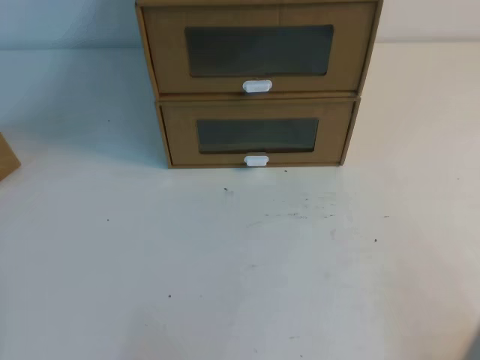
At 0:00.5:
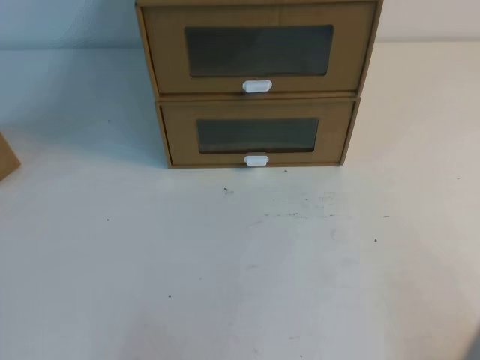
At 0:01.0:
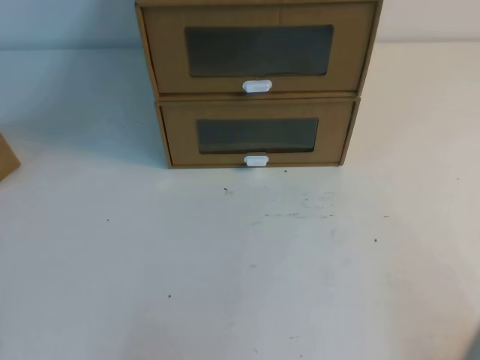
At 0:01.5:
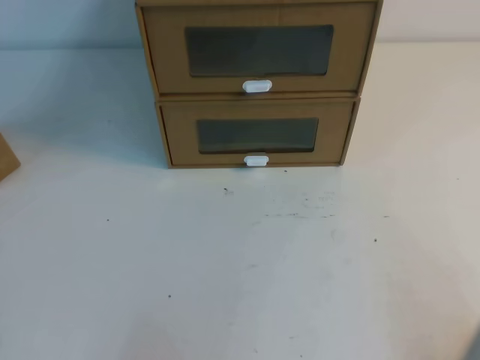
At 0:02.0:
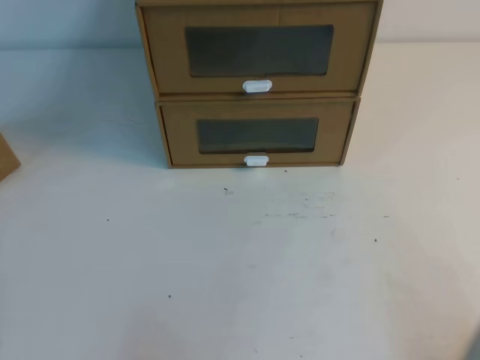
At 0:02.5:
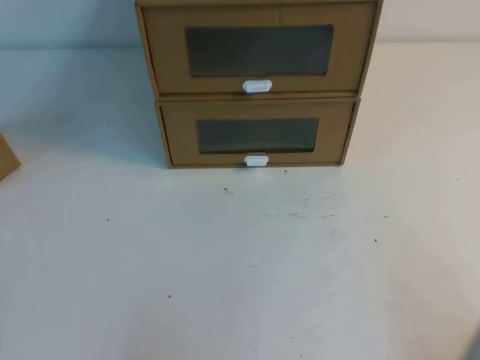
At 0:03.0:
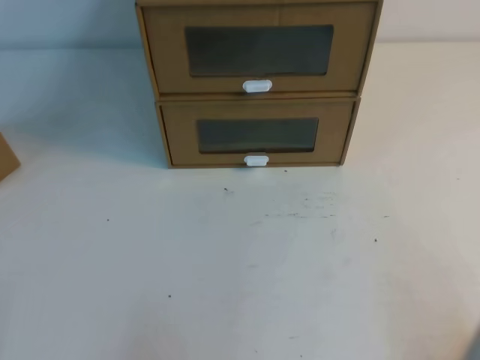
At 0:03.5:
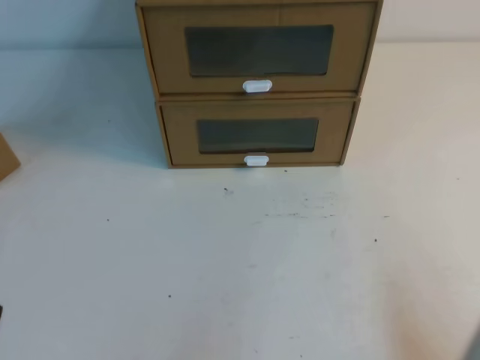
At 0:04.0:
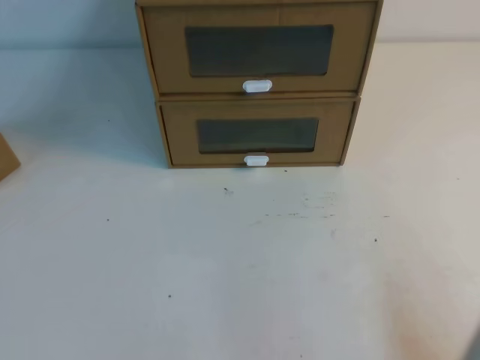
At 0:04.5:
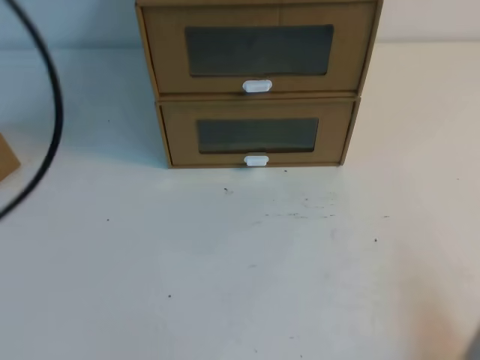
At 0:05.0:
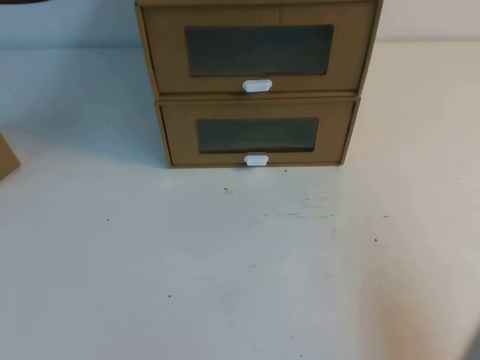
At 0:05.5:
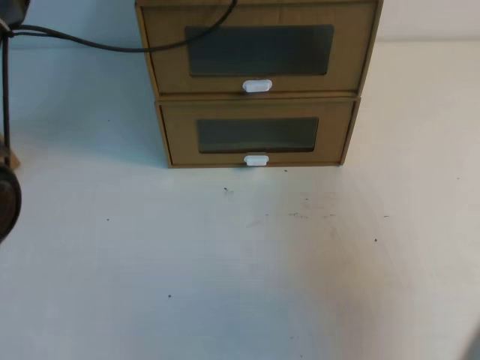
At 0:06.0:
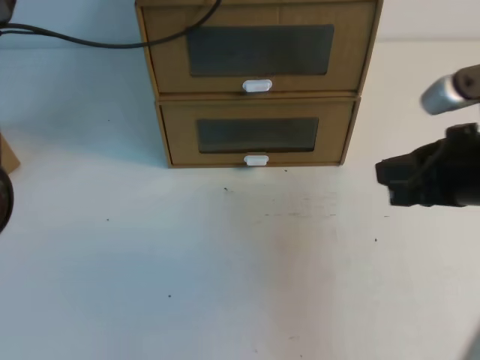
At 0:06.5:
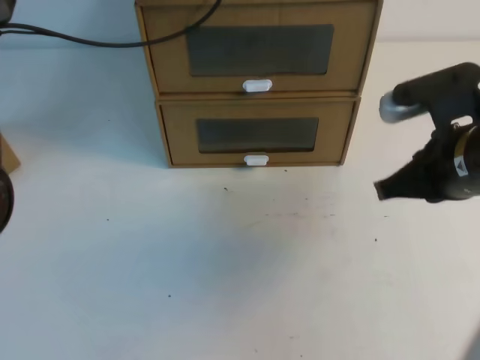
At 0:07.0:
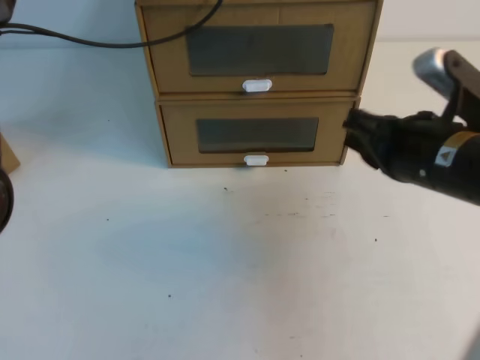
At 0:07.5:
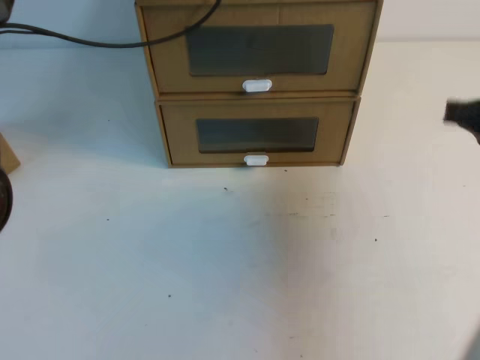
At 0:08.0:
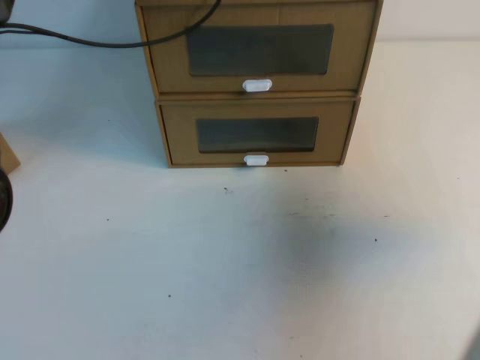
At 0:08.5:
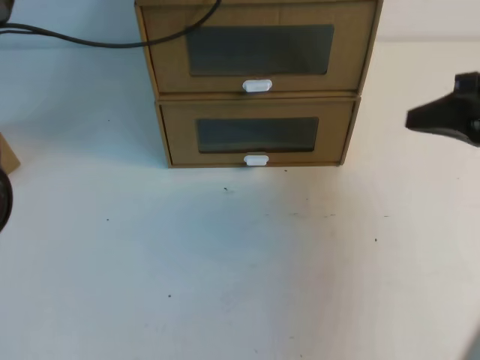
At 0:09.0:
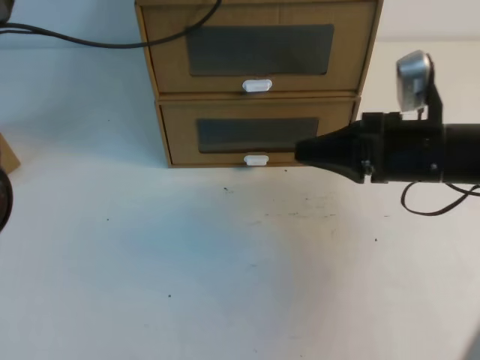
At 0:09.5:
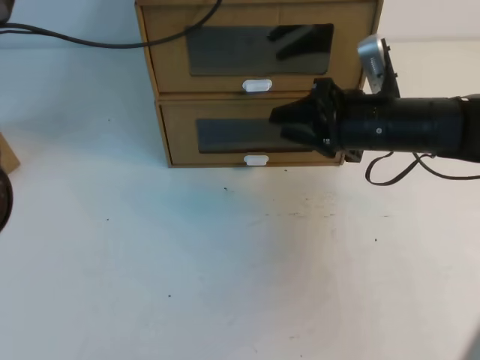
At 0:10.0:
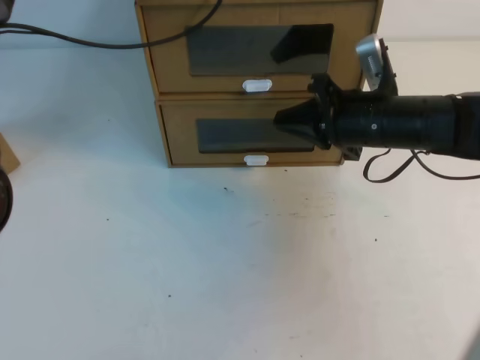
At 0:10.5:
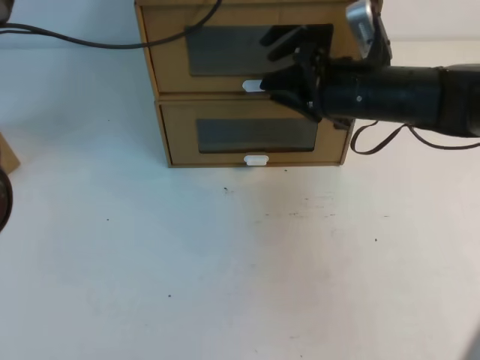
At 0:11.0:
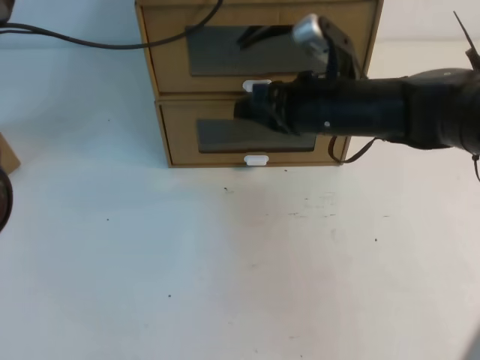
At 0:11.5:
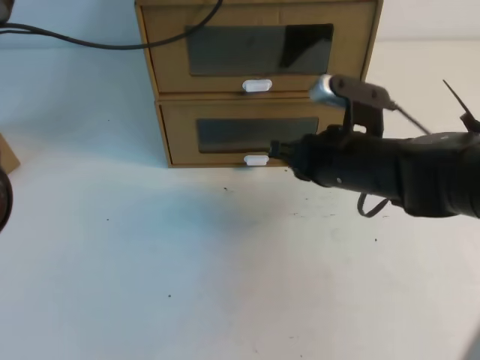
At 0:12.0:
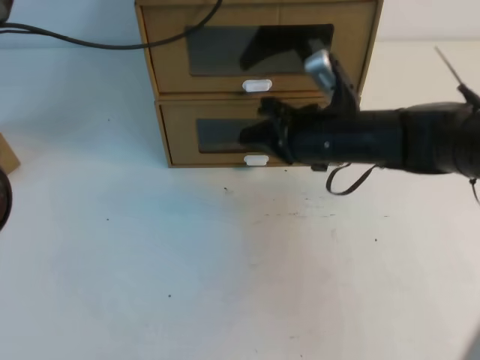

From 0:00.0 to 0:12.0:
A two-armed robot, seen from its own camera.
Task of the whole recording: open the shoebox on the table.
From 0:00.0 to 0:02.0: Both grippers stay about where they are.
From 0:04.0 to 0:06.0: The left gripper travels forward by some 40 cm; the right gripper moves forward, upward and to the left, approximately 20 cm.
From 0:06.0 to 0:08.0: The right gripper moves to the right and forward, roughly 10 cm.
From 0:08.0 to 0:10.0: The right gripper shifts approximately 20 cm to the left and forward, and opens, then closes again.
From 0:10.0 to 0:12.0: The right gripper opens, then closes once more.

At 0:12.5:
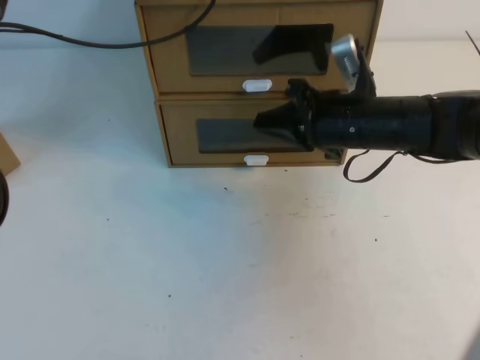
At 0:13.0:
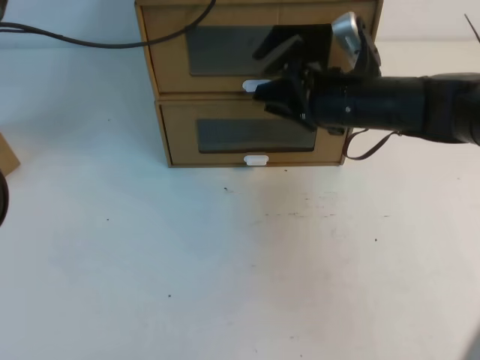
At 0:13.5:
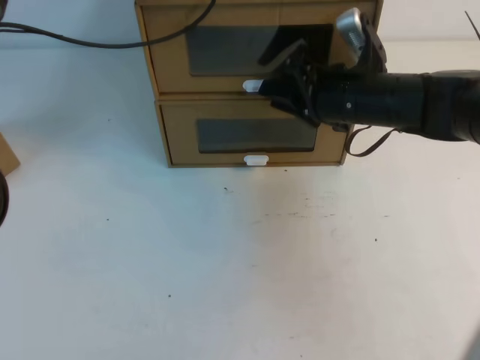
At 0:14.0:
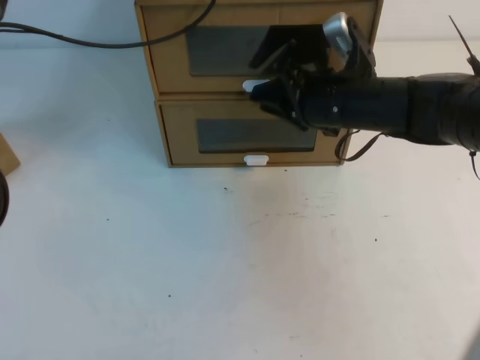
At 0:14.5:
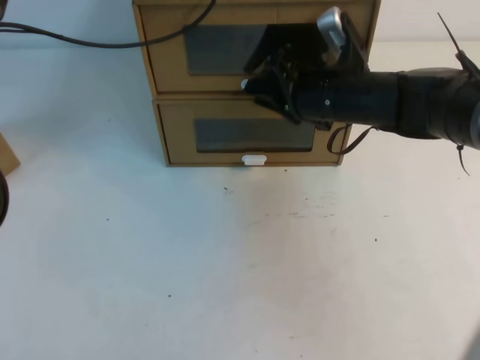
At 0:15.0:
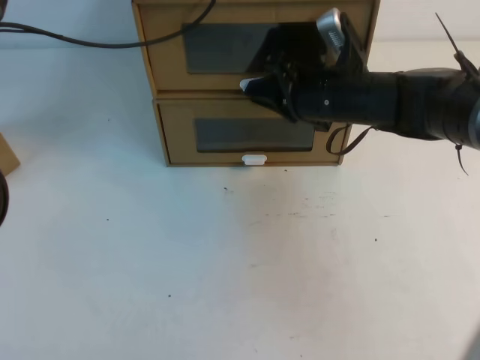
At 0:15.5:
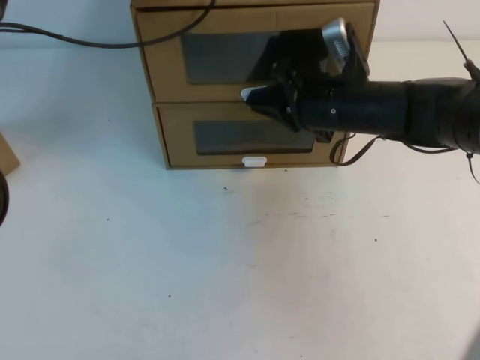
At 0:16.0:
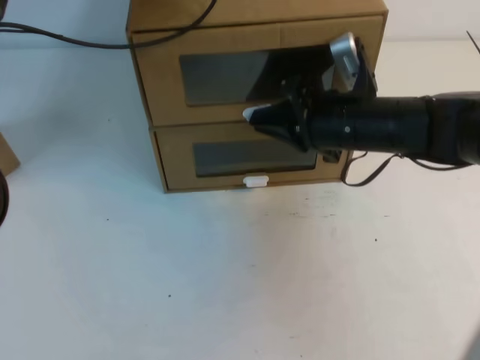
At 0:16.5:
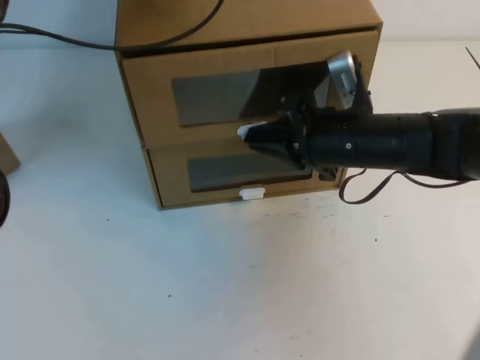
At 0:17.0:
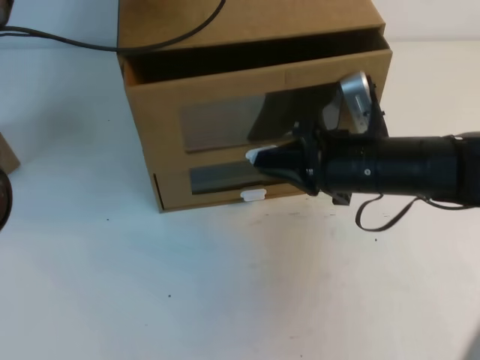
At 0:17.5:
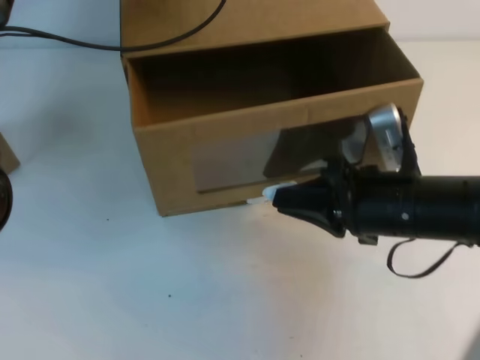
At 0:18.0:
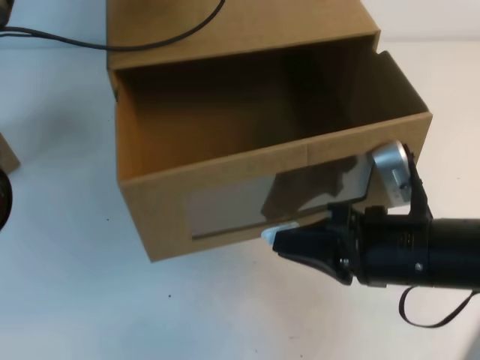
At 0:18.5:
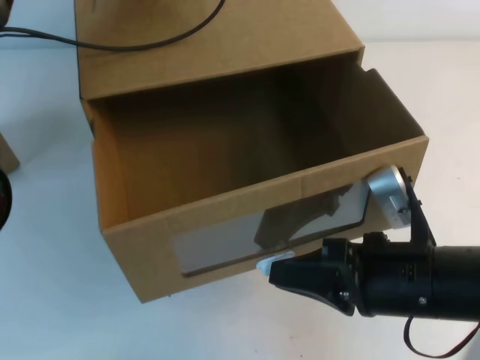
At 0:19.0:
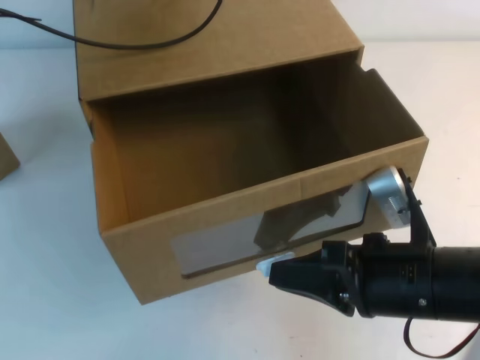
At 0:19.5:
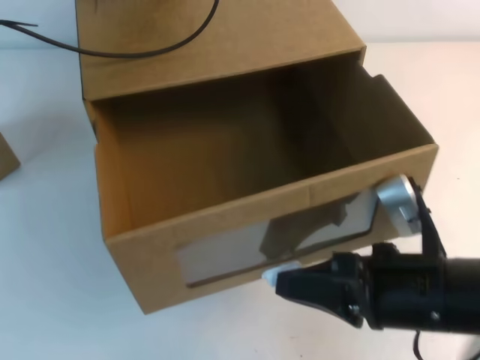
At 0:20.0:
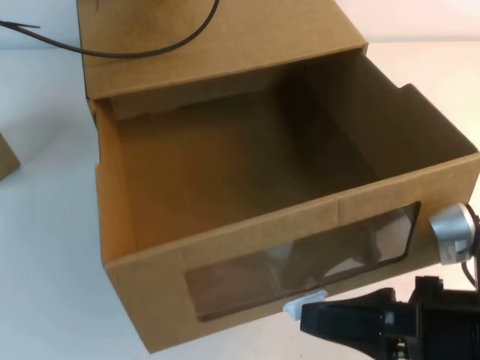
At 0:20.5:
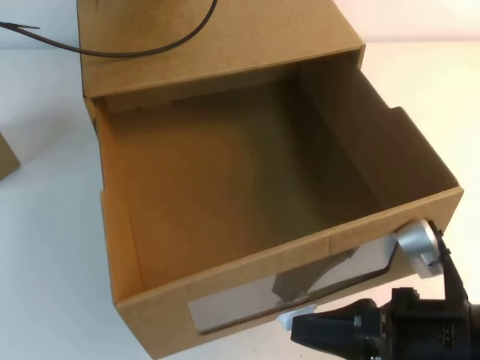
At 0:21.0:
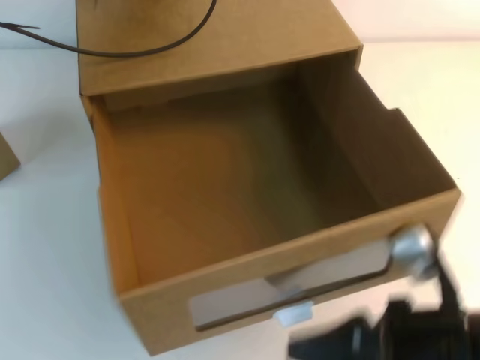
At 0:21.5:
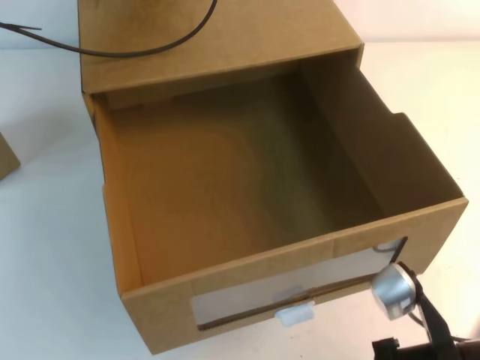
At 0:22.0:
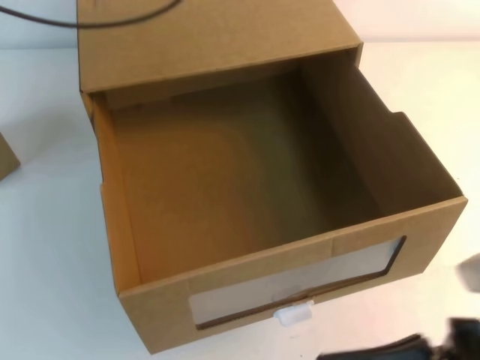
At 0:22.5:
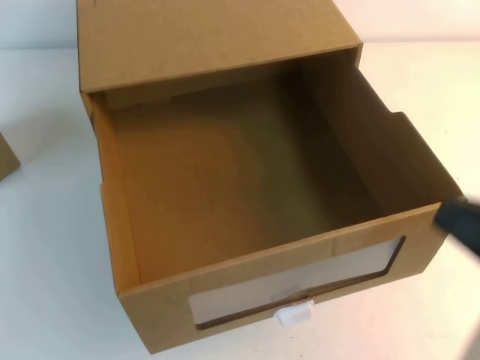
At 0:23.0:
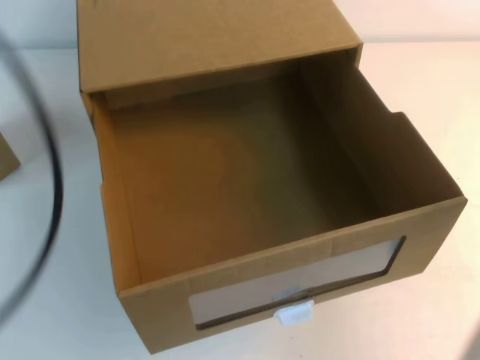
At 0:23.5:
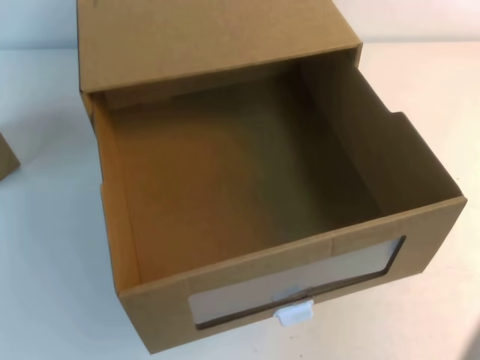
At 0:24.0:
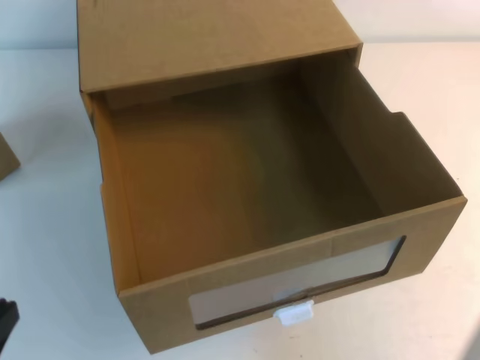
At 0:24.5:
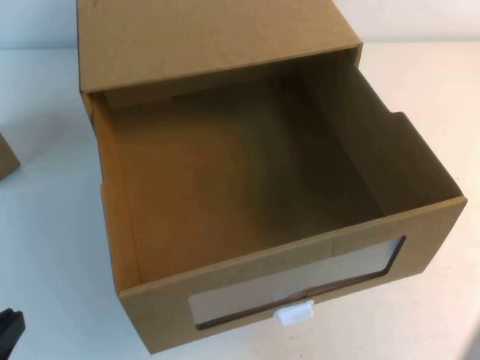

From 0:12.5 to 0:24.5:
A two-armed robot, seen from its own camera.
Task of the whole recording: open the shoebox on the table.
From 0:12.5 to 0:14.5: The right gripper opens its fingers.
From 0:14.5 to 0:16.5: The right gripper moves backward, roughly 5 cm, and closes.
From 0:16.5 to 0:18.5: The right gripper moves backward, about 15 cm.
From 0:18.5 to 0:20.5: The right gripper changes place by some 5 cm.
From 0:20.5 to 0:22.5: The right gripper goes roughly 10 cm upward and to the right, while the left gripper heads backward and upward, covering roughly 20 cm.
From 0:22.5 to 0:24.5: The left gripper shifts about 40 cm downward and backward, while the right gripper heads upward, covering some 5 cm.

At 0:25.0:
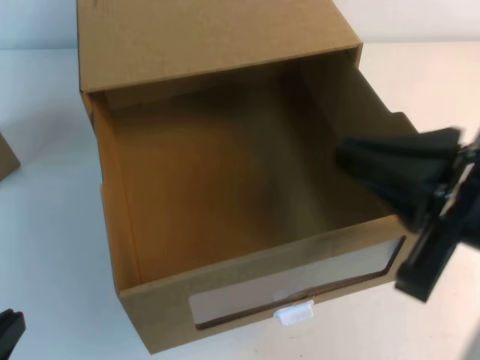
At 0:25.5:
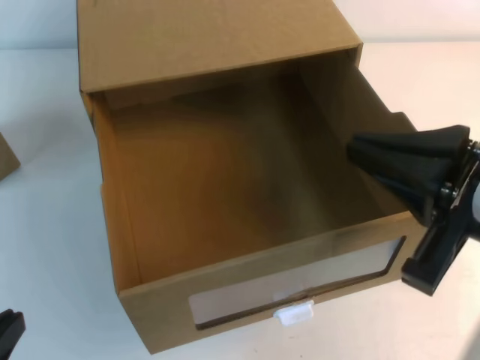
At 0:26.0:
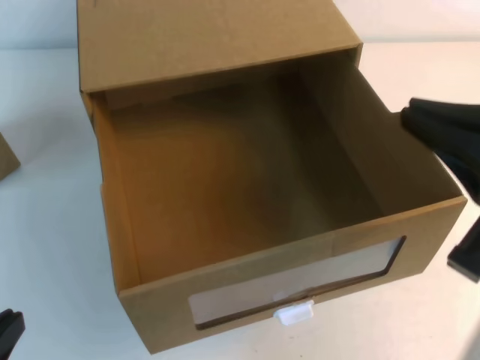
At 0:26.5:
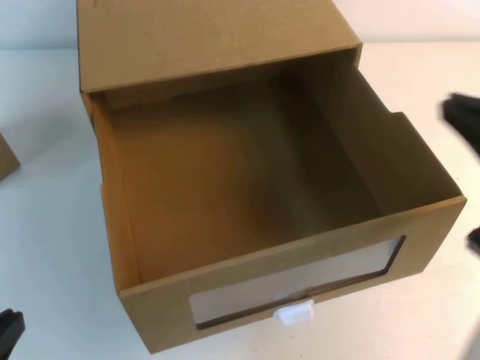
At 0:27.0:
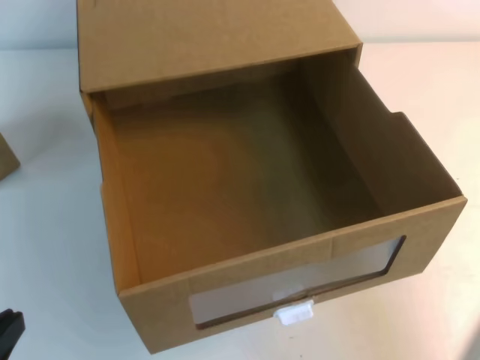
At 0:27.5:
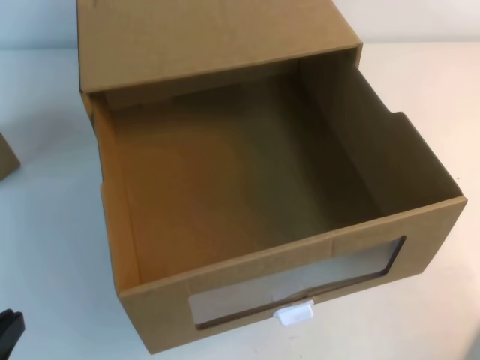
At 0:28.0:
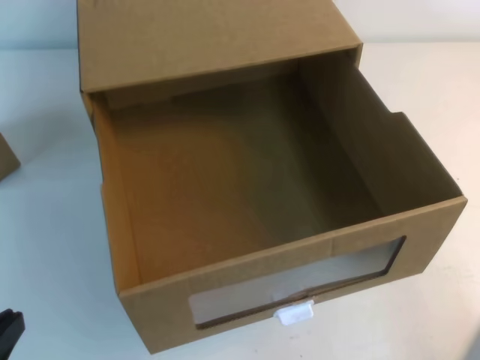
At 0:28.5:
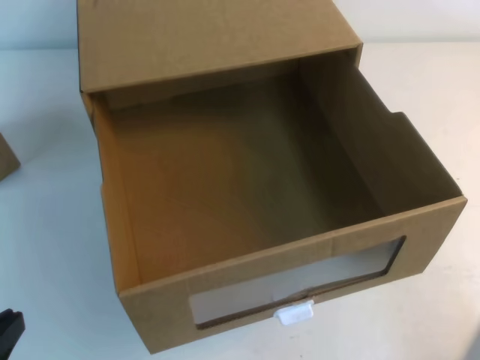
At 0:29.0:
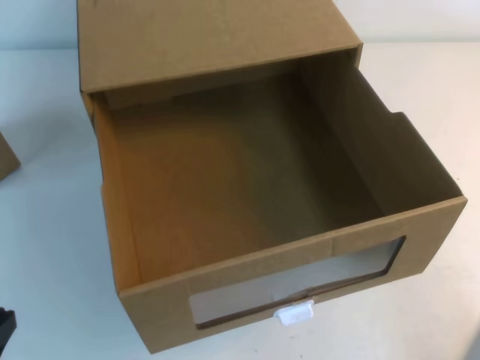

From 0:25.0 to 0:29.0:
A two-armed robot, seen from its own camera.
Task of the whole recording: open the shoebox on the table.
From 0:25.0 to 0:27.0: The right gripper moves to the right and downward, approximately 15 cm.
From 0:27.0 to 0:29.0: The right gripper shifts roughly 15 cm downward.
